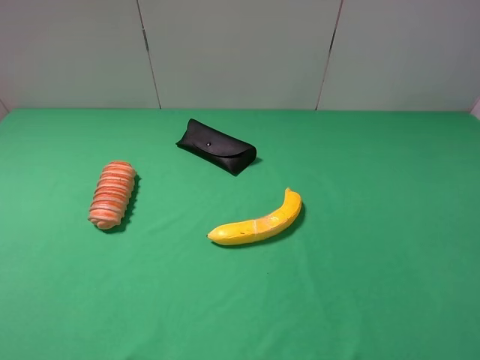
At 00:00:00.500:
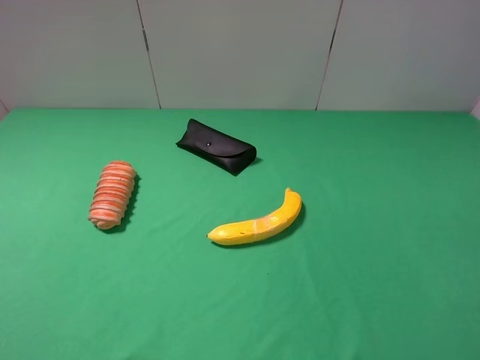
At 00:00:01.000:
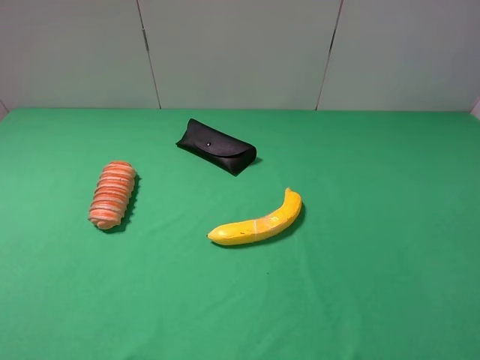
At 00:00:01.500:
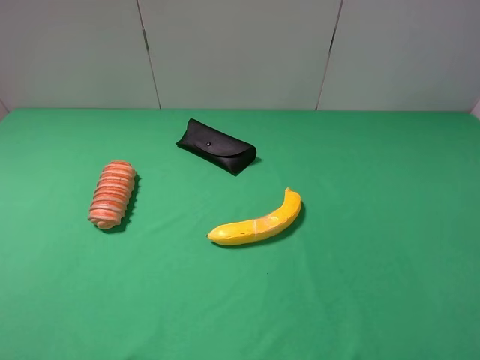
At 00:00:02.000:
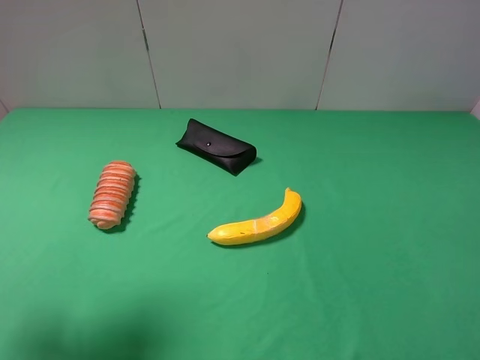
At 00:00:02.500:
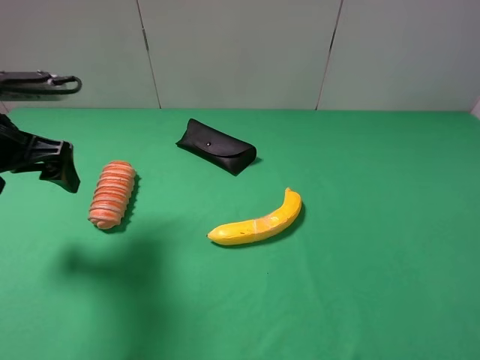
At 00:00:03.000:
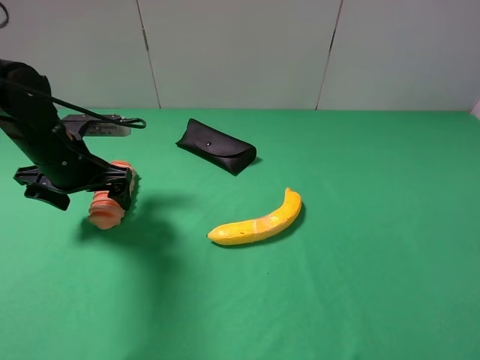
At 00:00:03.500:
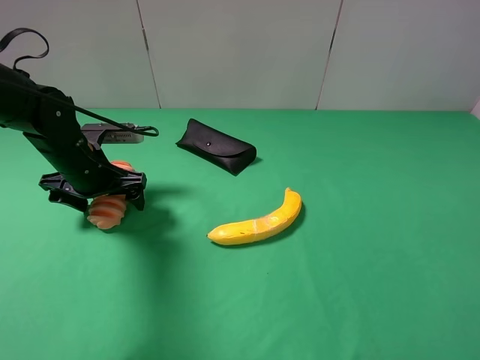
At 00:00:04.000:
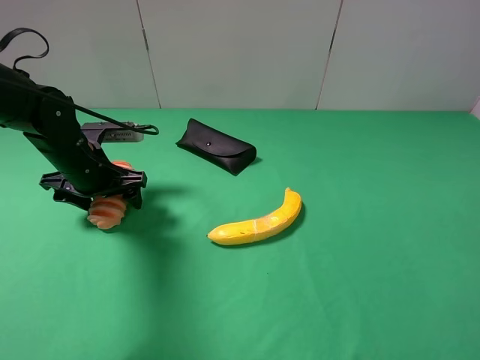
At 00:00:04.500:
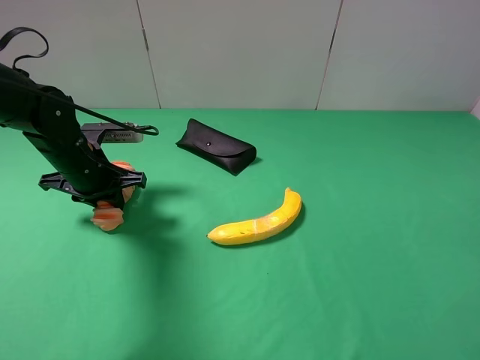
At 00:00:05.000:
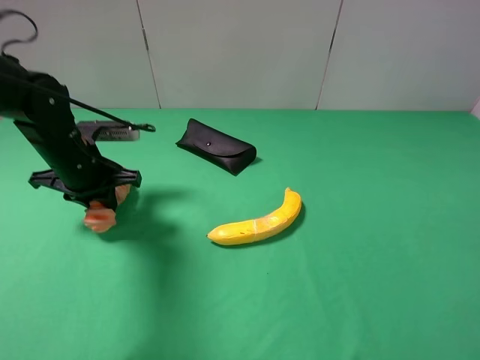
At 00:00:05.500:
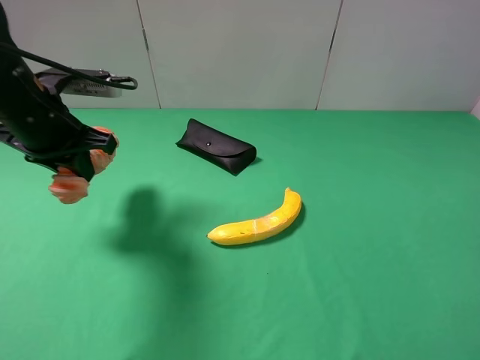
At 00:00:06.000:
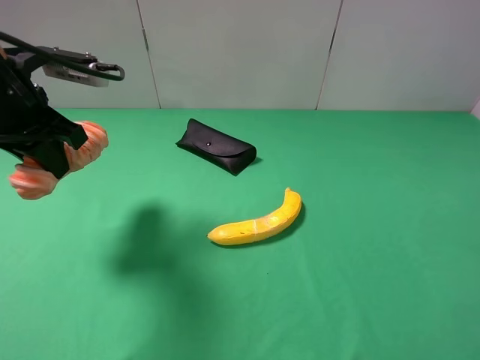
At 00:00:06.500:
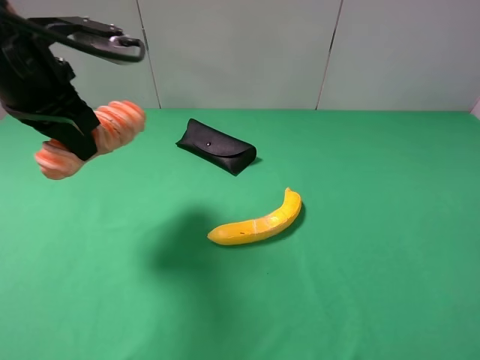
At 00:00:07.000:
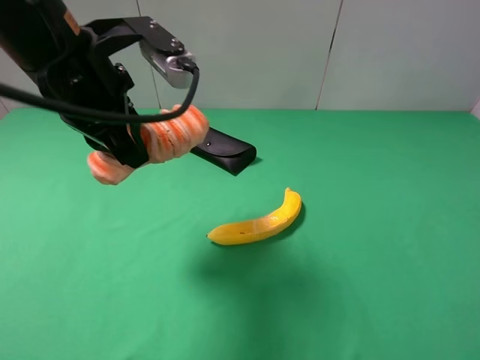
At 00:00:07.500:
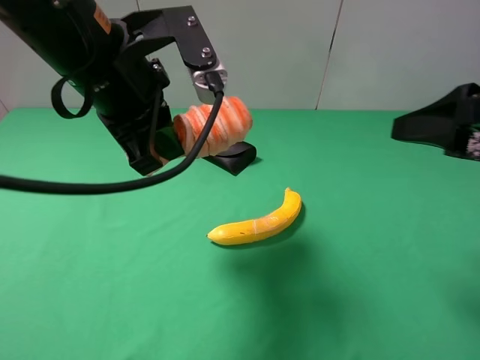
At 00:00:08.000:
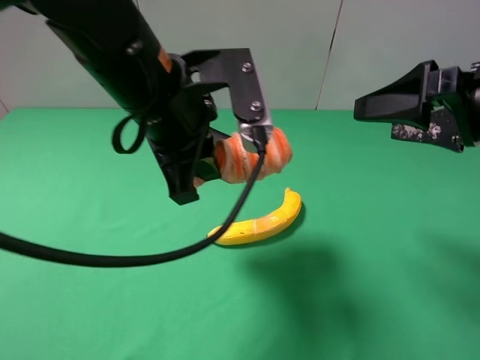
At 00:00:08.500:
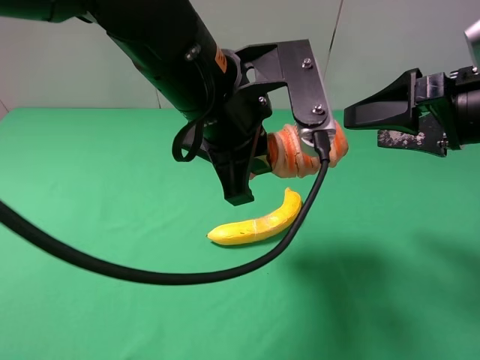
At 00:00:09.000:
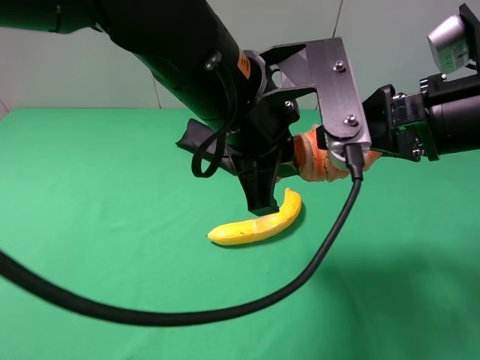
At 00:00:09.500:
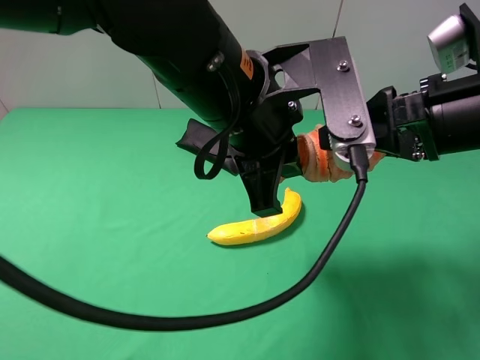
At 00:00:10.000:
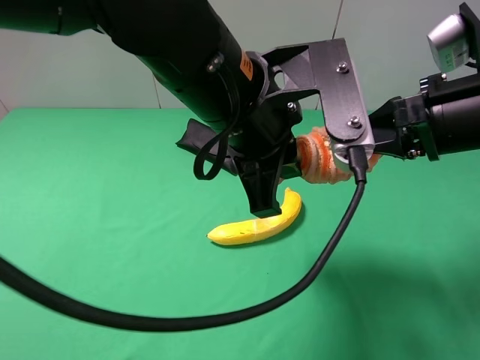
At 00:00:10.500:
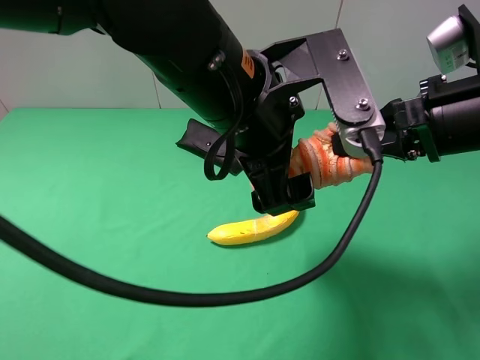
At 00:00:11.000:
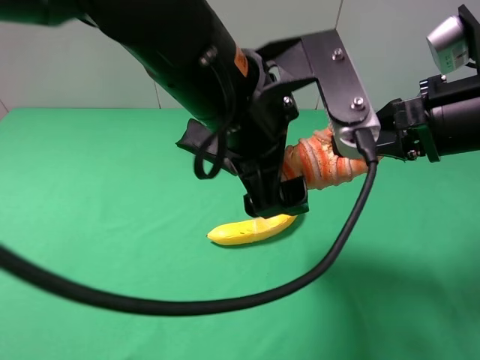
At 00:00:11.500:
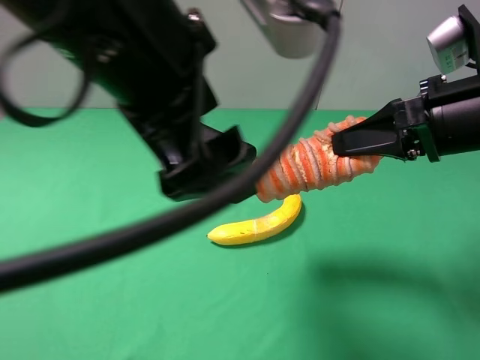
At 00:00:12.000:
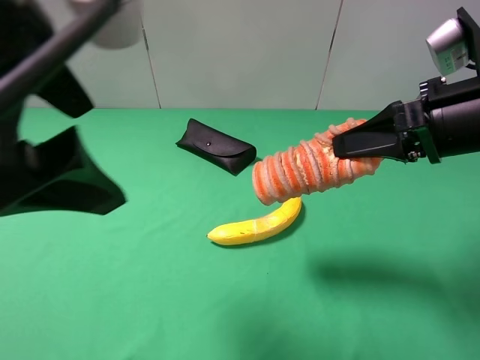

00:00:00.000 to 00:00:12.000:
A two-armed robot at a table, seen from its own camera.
Task of the whole recording: use the left gripper to pick up the item and transfer it from the left gripper to the right gripper.
Step, 00:00:00.000 to 00:00:04.500: Use the left gripper to grab the long bread on the left side of the table.
Step, 00:00:05.000 to 00:00:11.000: Pass the long bread to the right gripper.
00:00:00.000 to 00:00:02.000: The left gripper heads forward, covering some 15 cm.
00:00:02.000 to 00:00:04.000: The left gripper moves downward, forward and to the right, about 25 cm.
00:00:04.000 to 00:00:06.000: The left gripper moves upward, approximately 15 cm, and closes up.
00:00:06.000 to 00:00:08.000: The right gripper travels forward by approximately 20 cm. The left gripper heads to the right, covering approximately 20 cm.
00:00:08.000 to 00:00:10.000: The left gripper goes approximately 5 cm to the right; the right gripper closes.
00:00:10.000 to 00:00:12.000: The left gripper moves to the left, upward and backward, roughly 20 cm, and opens.

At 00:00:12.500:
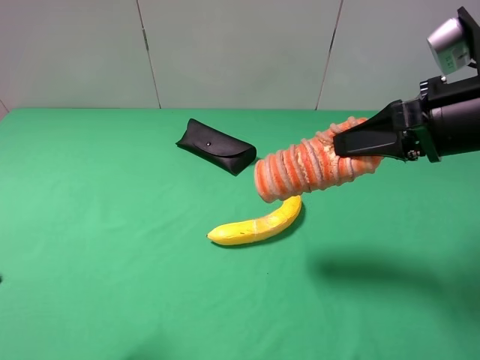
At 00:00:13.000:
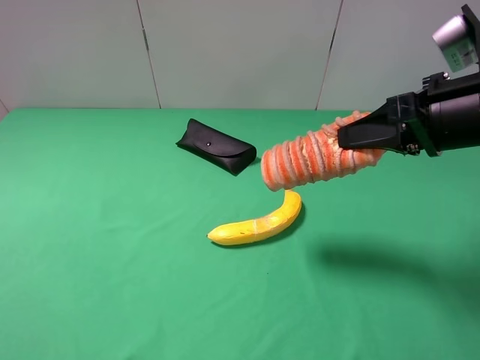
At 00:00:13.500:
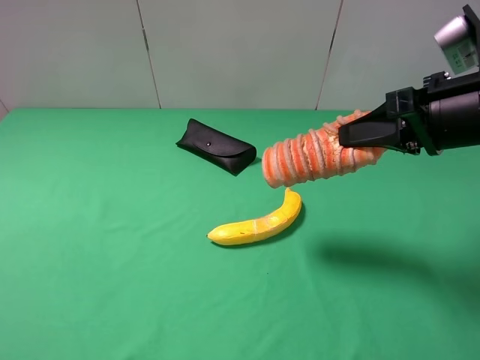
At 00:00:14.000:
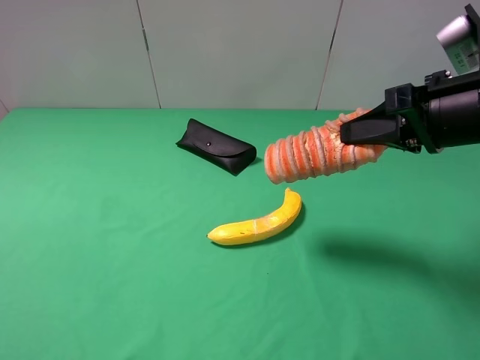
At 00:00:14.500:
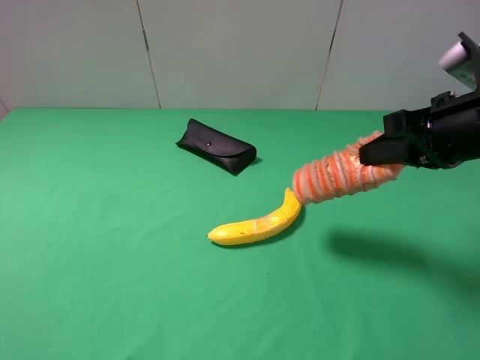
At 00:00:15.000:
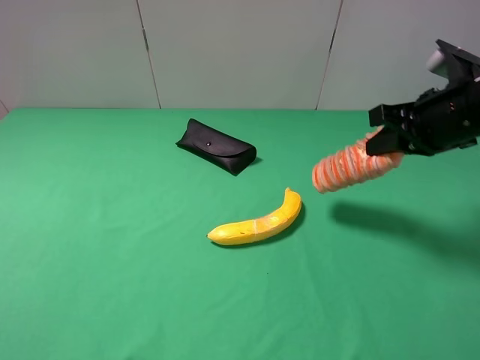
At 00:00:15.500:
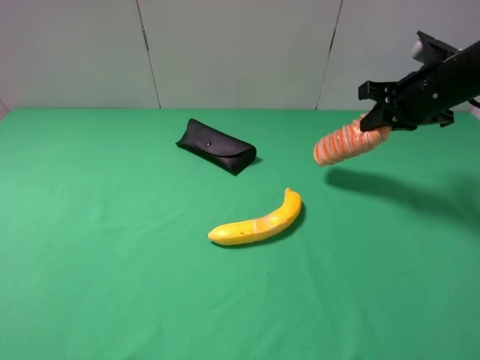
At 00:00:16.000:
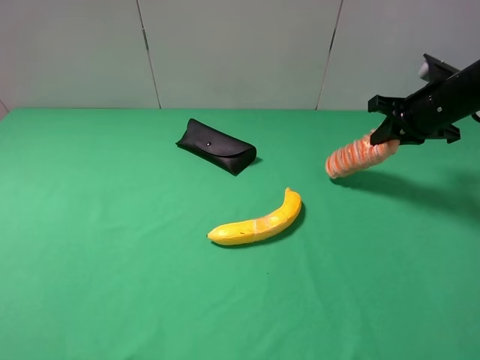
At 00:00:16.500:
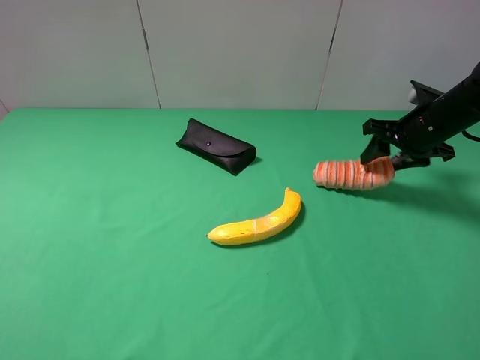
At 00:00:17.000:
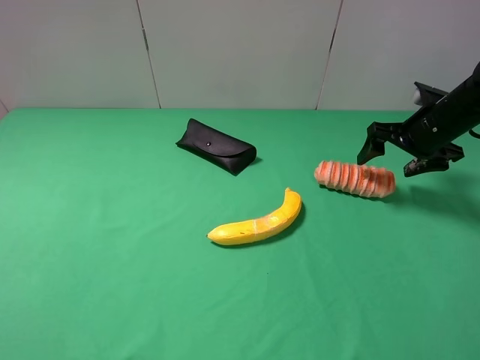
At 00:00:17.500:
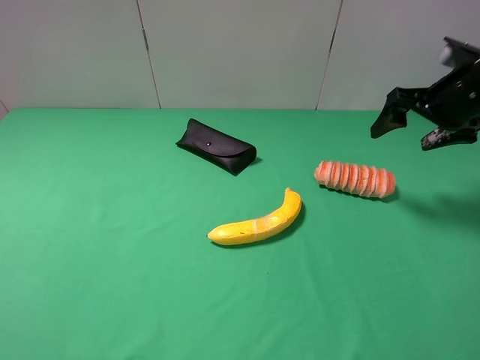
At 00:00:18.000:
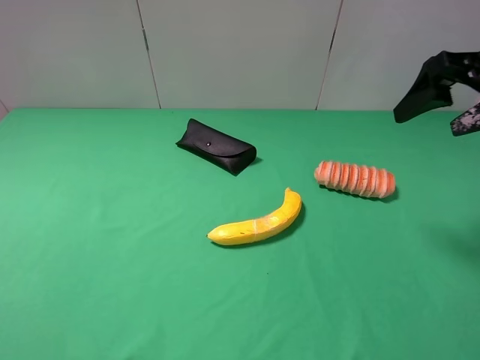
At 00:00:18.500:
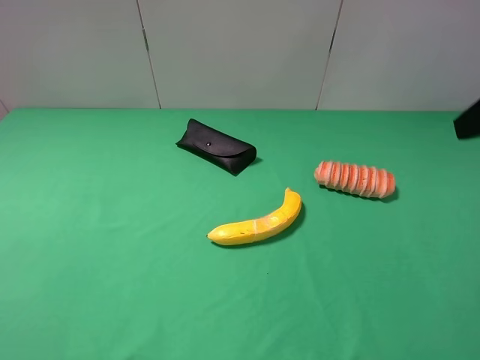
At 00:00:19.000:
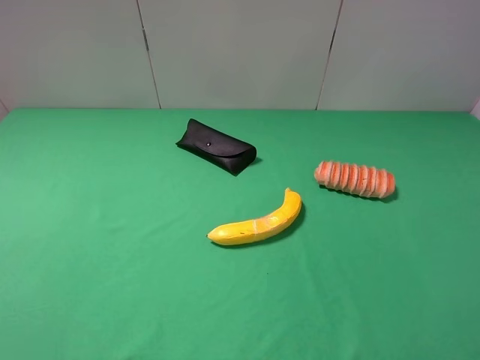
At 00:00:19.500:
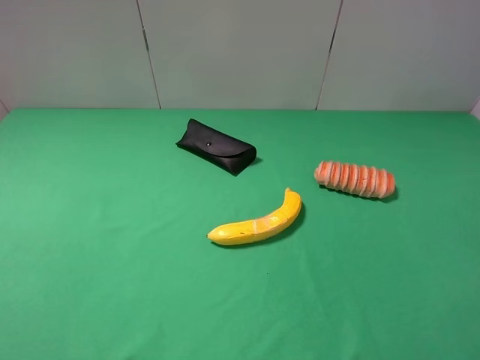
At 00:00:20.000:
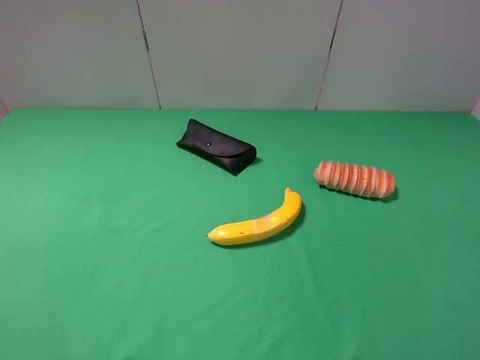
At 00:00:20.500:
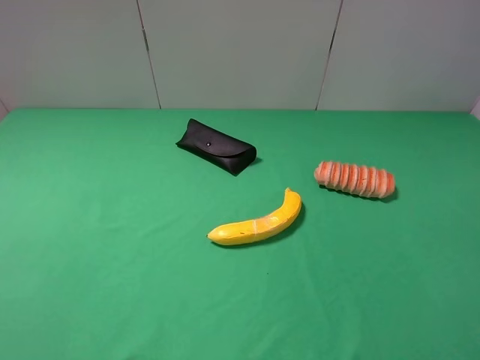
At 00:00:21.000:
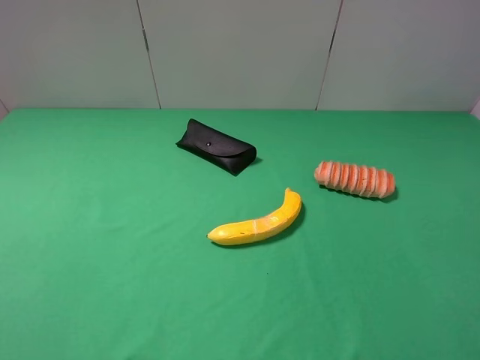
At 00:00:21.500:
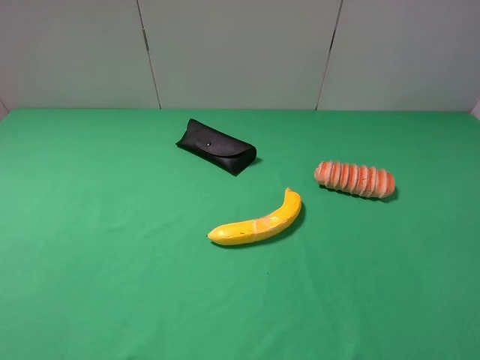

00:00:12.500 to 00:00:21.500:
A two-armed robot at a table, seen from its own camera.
Task of the whole recording: use the left gripper to pick up the item and transfer it from the left gripper to the right gripper.
Step, 00:00:12.500 to 00:00:17.000: The right gripper places long bread on the right side of the table.
00:00:12.500 to 00:00:14.500: The left gripper shifts approximately 10 cm to the left, backward and downward.
00:00:14.500 to 00:00:17.000: The right gripper travels forward, downward and to the right by some 20 cm, and opens.
00:00:17.000 to 00:00:19.500: The right gripper moves backward, approximately 35 cm.
